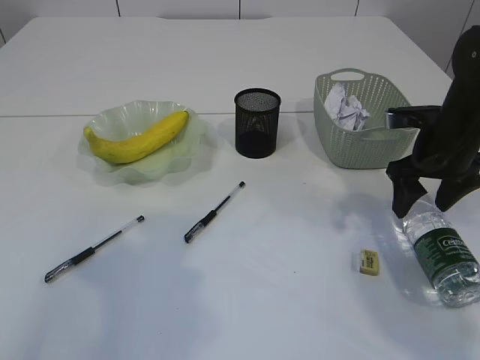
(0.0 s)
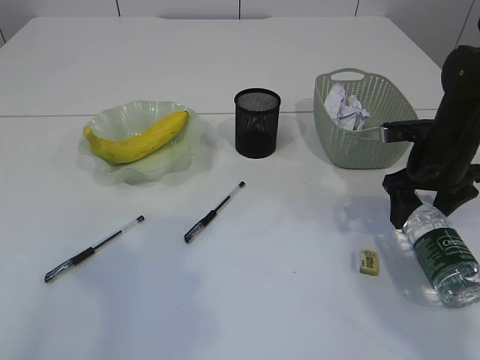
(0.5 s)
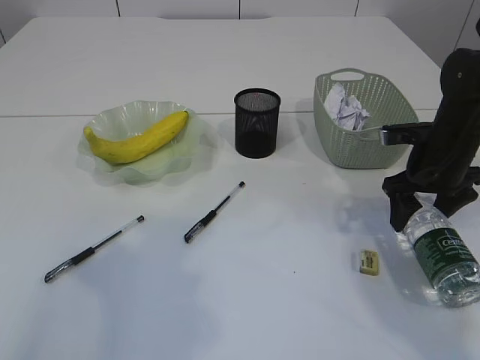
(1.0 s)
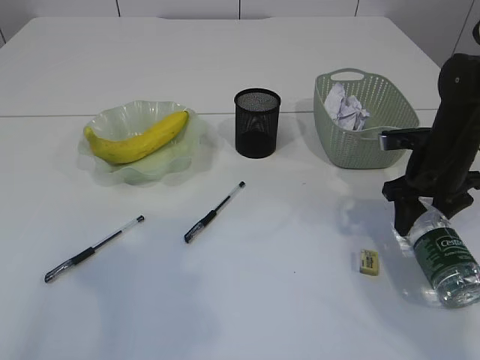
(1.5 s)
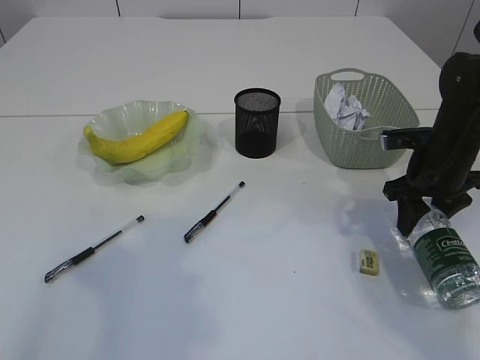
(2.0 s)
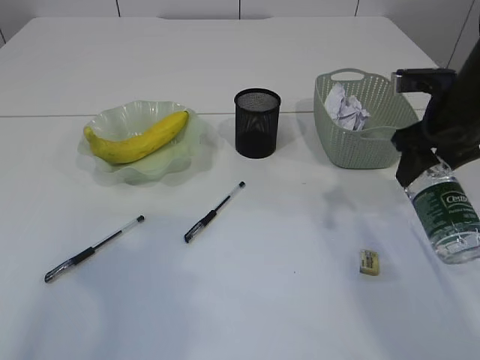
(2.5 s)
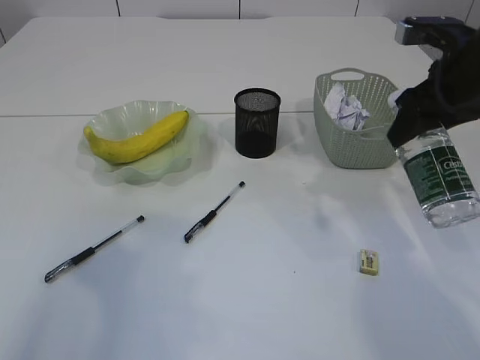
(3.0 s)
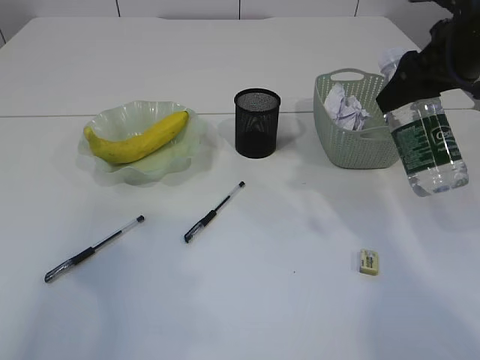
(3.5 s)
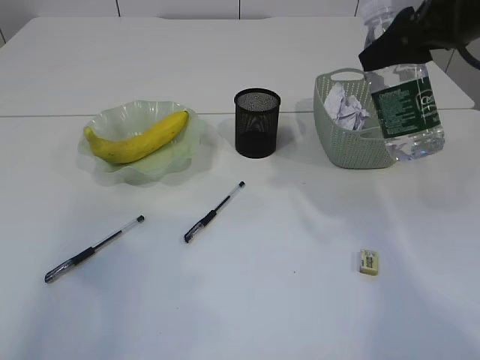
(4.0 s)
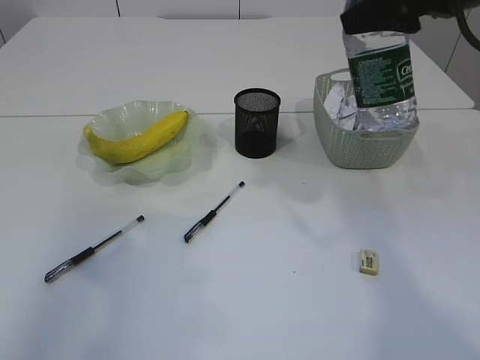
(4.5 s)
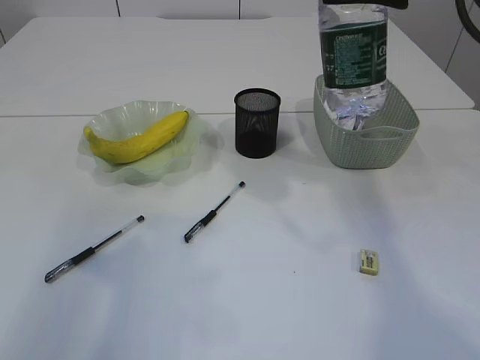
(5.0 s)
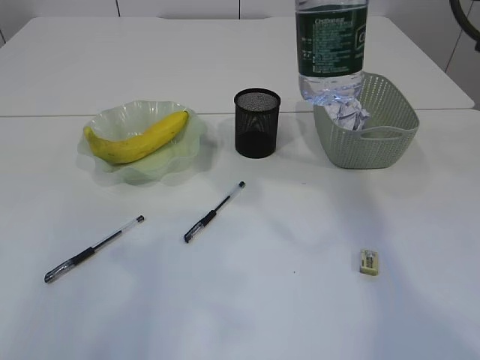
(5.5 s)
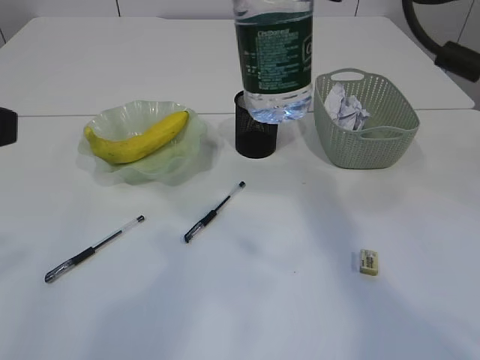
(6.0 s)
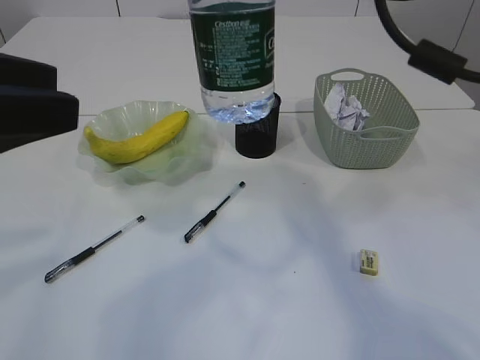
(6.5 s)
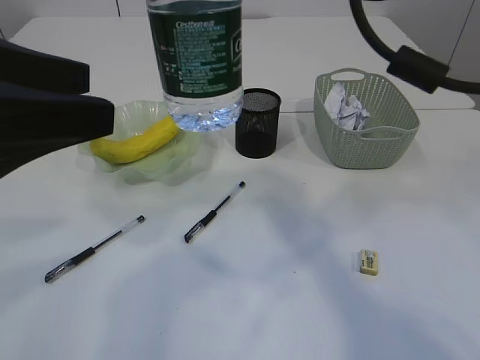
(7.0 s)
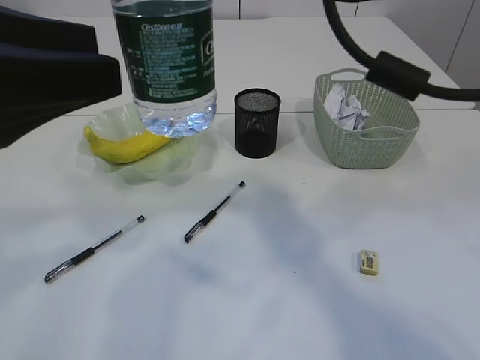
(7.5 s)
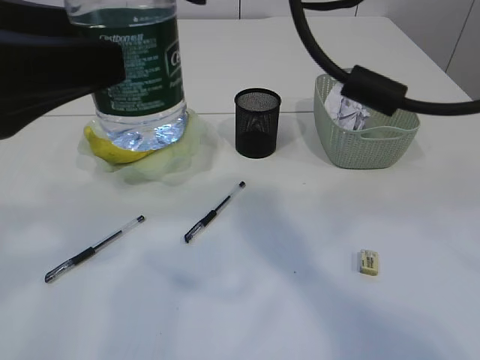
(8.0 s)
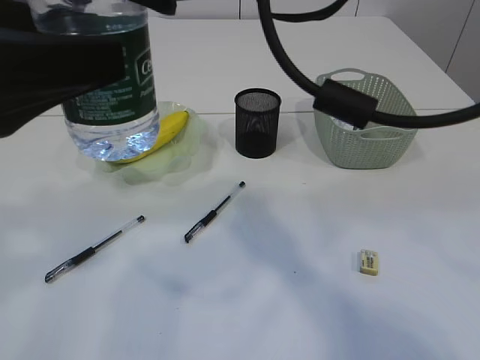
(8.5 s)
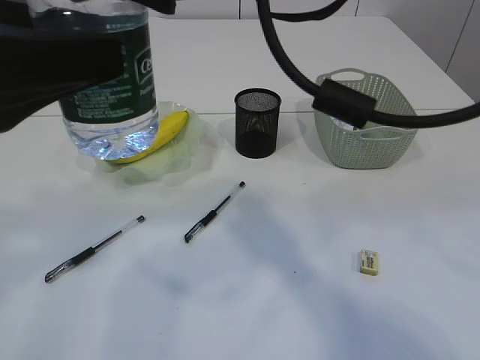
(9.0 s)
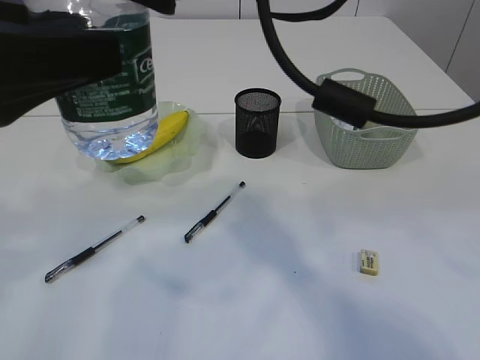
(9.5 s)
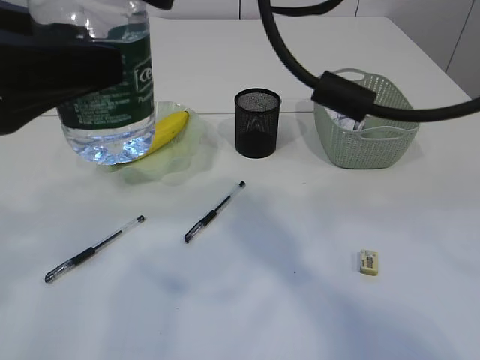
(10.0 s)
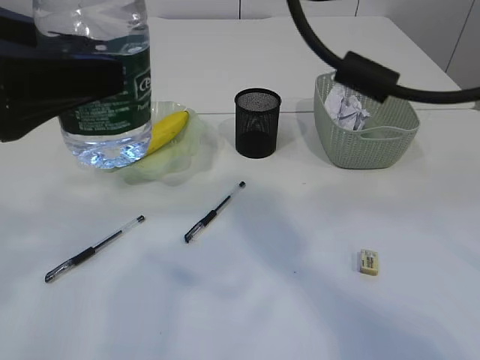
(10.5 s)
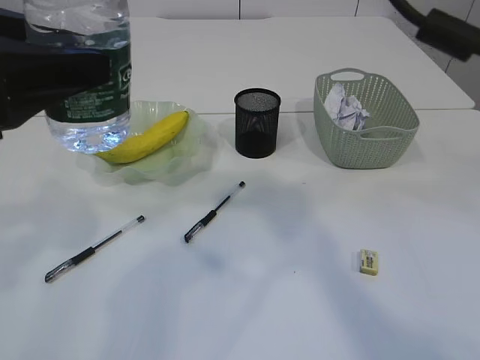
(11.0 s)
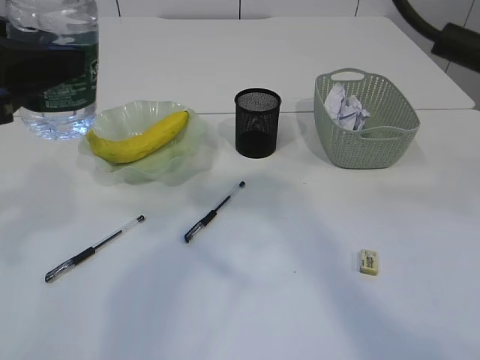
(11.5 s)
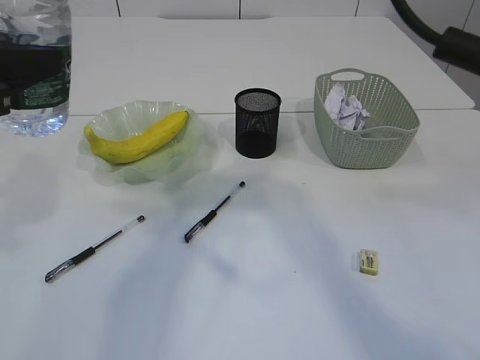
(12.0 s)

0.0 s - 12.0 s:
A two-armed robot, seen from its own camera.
Step, 0.0 s - 2.5 s: Pick up the bottle with the right arm.
Step, 3.0 s - 11.0 s: transfer the bottle to the left arm.
0.0 s - 2.0 s: The grippers move only a little.
2.0 s - 4.0 s: The right gripper heads upward, covering some 20 cm.
4.0 s - 6.0 s: The right gripper travels to the left and upward by approximately 10 cm.
6.0 s - 8.0 s: The left gripper shifts by approximately 5 cm, and opens. The right gripper heads to the left, covering about 10 cm.
8.0 s - 10.0 s: The left gripper closes.
10.0 s - 12.0 s: The right gripper moves to the right, some 5 cm. Meanwhile the left gripper ends up roughly 5 cm from where it was.

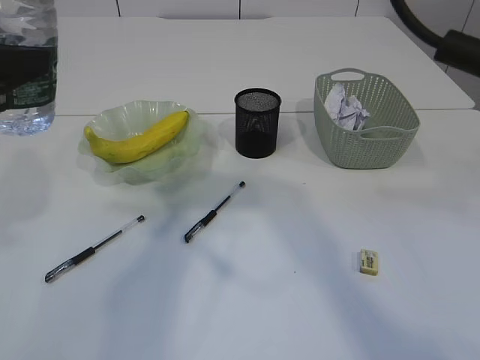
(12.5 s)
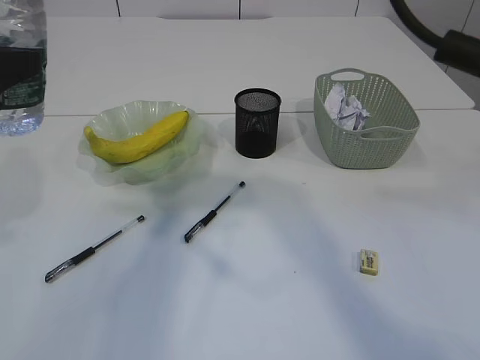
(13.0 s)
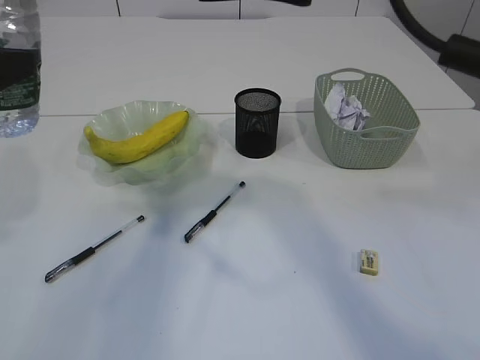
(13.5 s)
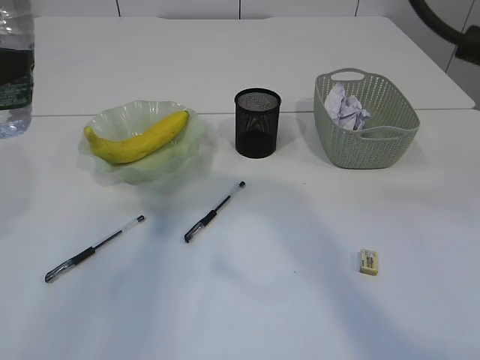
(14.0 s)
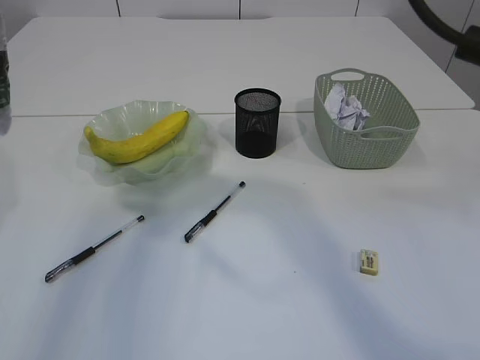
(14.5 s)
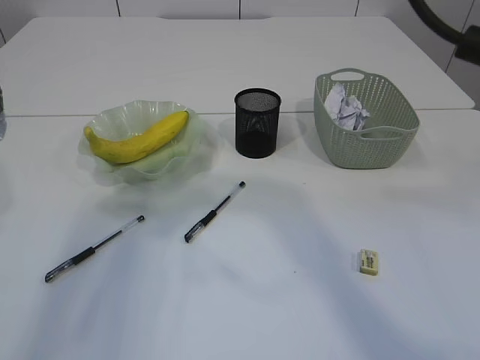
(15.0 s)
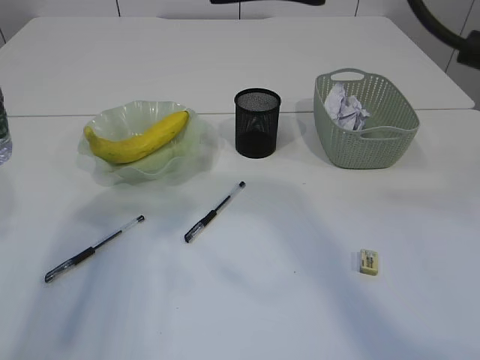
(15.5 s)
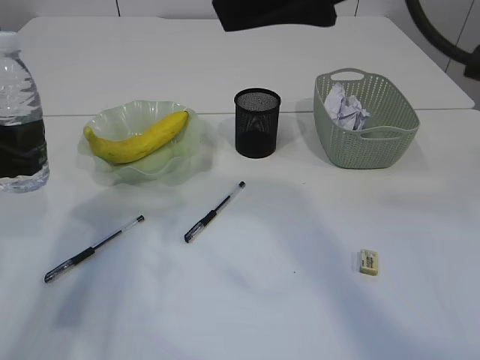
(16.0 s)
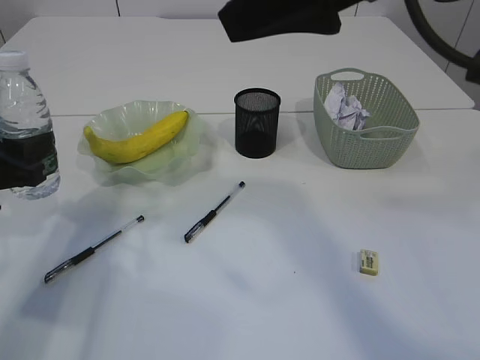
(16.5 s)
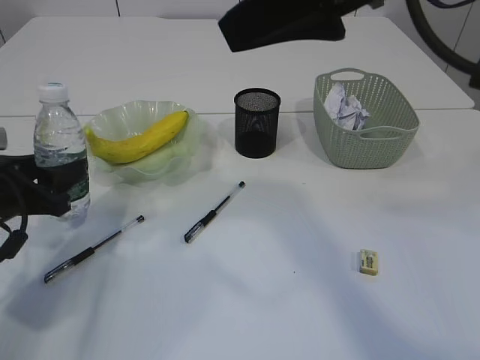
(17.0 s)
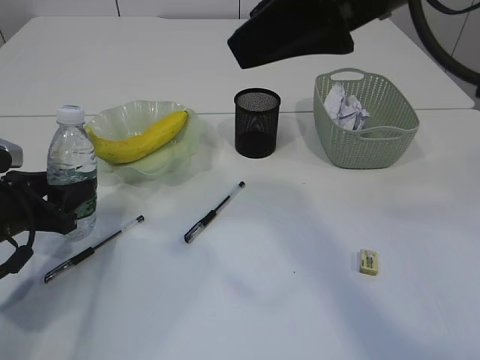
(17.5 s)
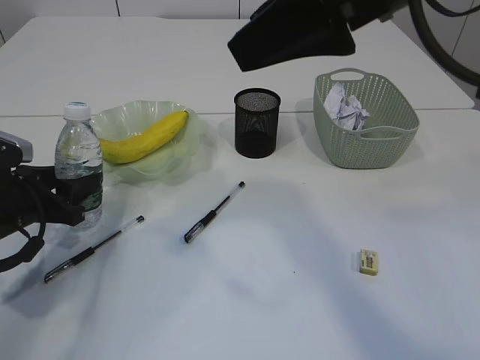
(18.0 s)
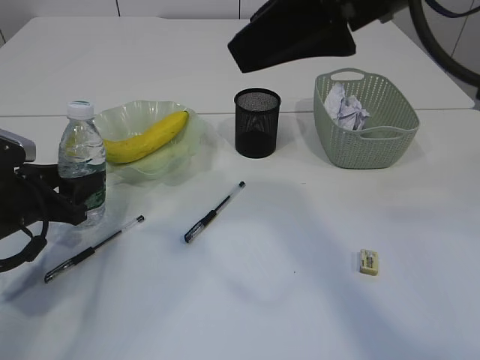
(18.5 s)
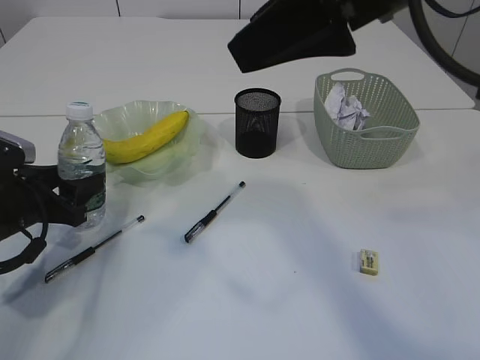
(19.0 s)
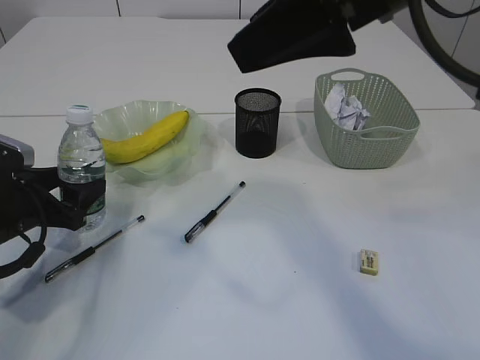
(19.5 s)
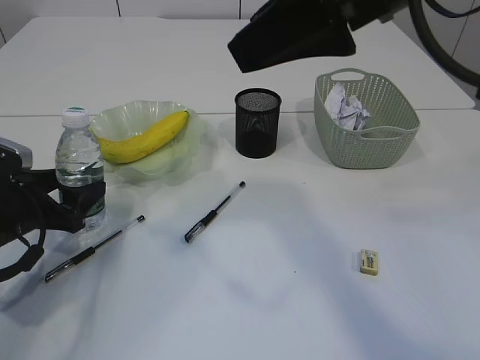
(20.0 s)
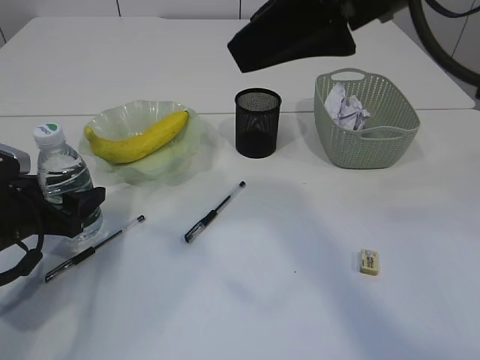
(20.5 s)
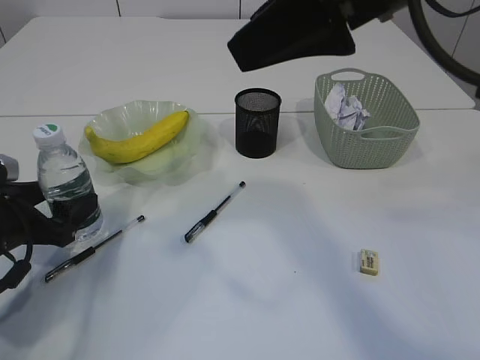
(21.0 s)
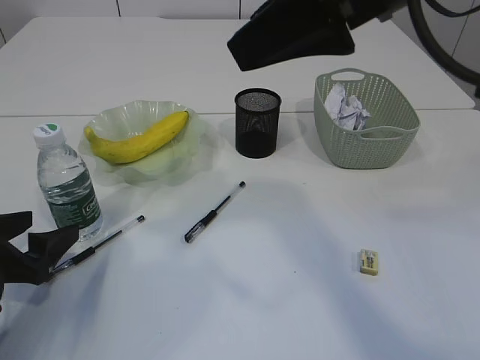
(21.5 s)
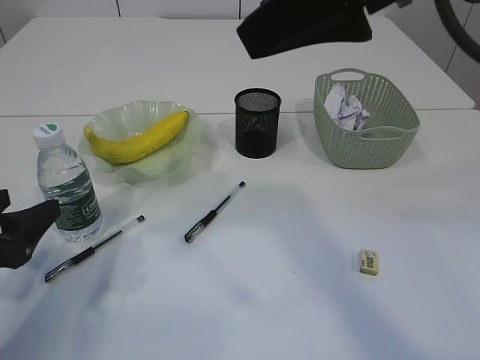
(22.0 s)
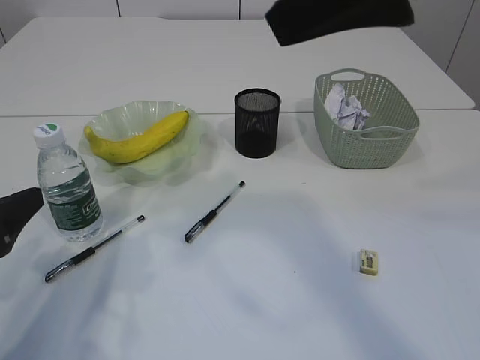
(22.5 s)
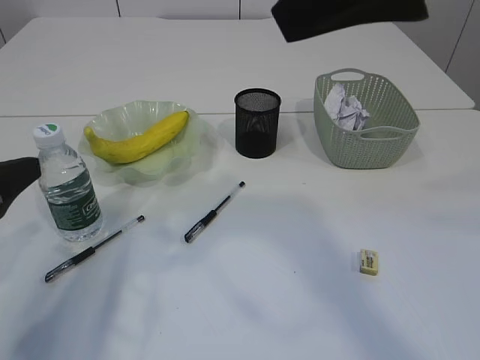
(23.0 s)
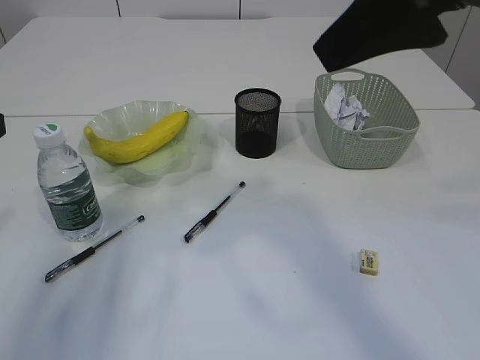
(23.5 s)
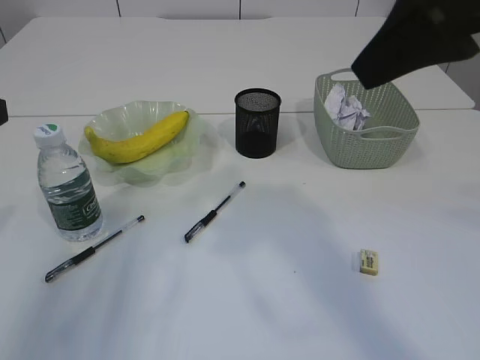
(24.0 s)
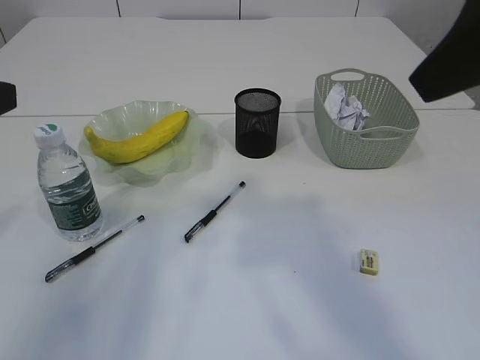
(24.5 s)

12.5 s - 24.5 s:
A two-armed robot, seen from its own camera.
Step, 12.5 s - 21.0 s: Place the bottle.
12.5 s - 14.5 s: The grippers move only a little.
14.5 s - 16.5 s: The left gripper heads downward, covering approximately 15 cm.
16.5 s - 18.5 s: The left gripper heads downward, covering approximately 5 cm.
18.5 s - 20.5 s: The left gripper opens.
20.5 s - 22.5 s: The left gripper moves backward and upward, some 15 cm.
22.5 s - 24.5 s: The left gripper heads upward, covering about 15 cm. Meanwhile the right gripper goes approximately 5 cm to the right.

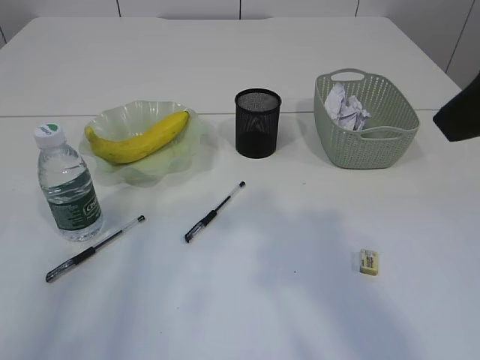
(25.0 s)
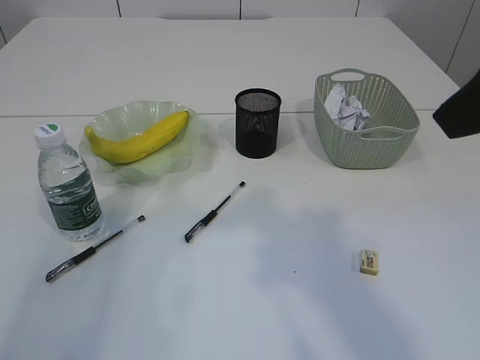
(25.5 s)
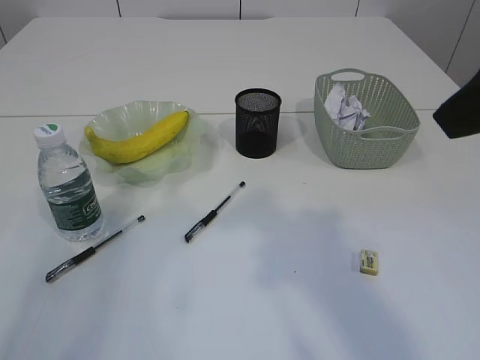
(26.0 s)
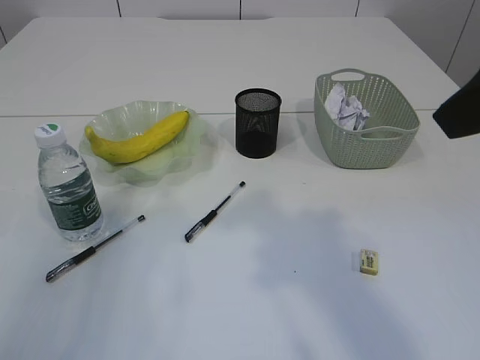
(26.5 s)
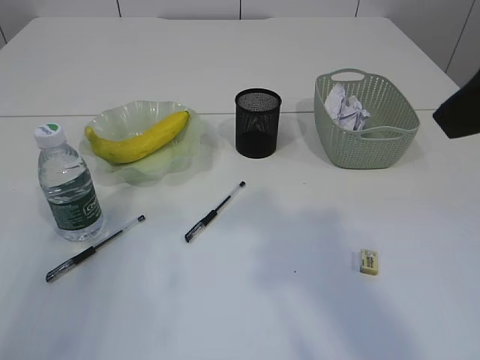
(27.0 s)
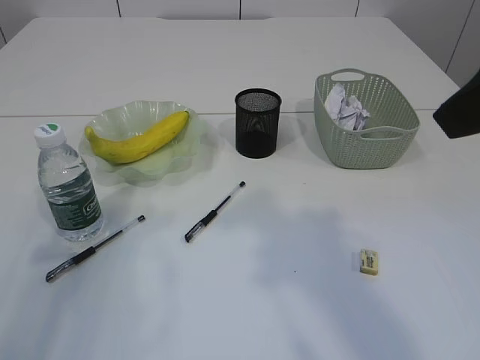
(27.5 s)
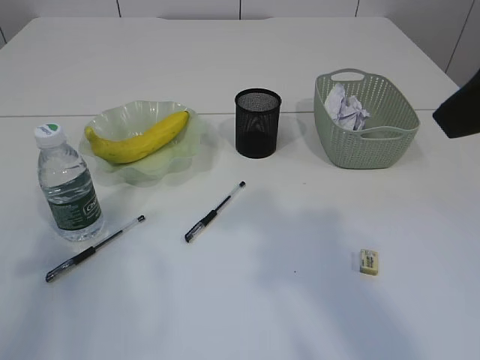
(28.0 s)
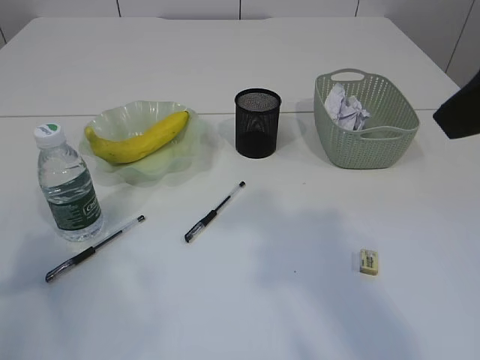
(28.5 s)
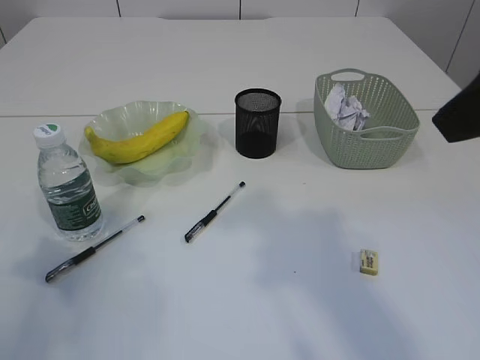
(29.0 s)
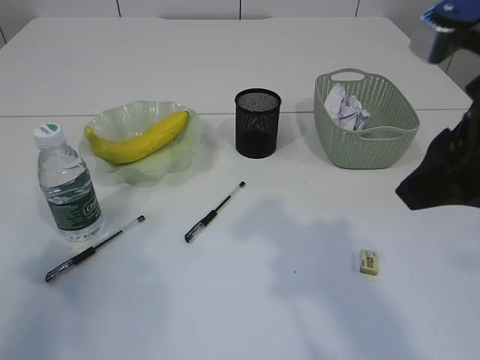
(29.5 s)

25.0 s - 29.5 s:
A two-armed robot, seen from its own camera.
27.0 s - 29.5 s: The right gripper goes roughly 5 cm downward.
